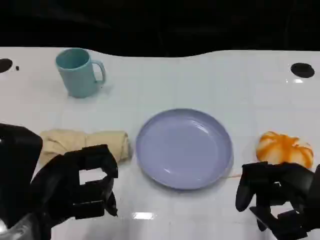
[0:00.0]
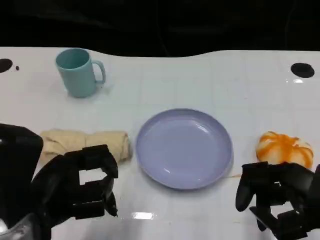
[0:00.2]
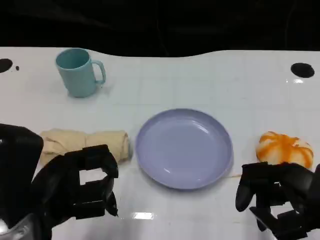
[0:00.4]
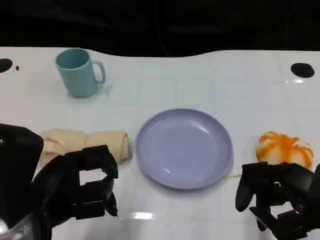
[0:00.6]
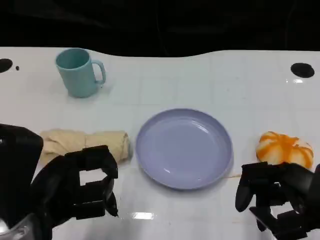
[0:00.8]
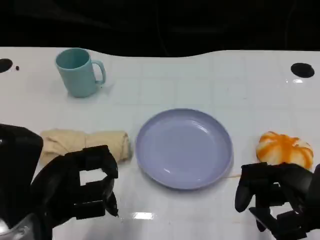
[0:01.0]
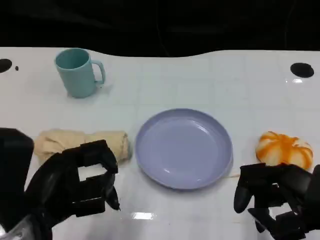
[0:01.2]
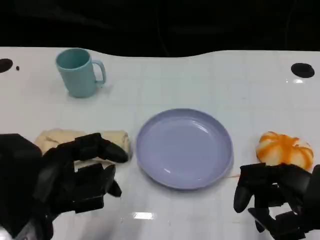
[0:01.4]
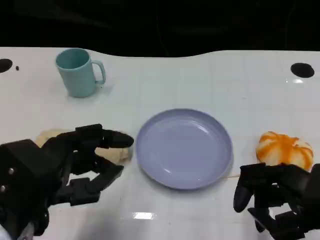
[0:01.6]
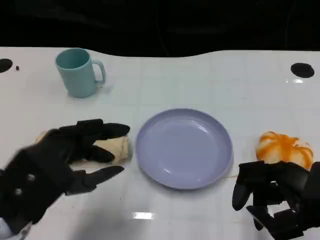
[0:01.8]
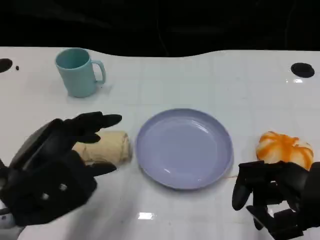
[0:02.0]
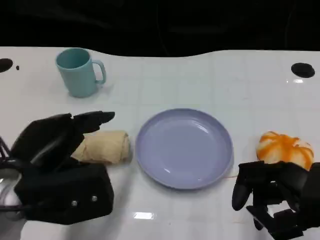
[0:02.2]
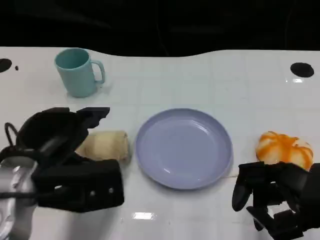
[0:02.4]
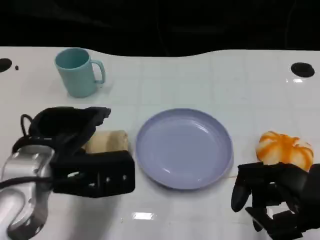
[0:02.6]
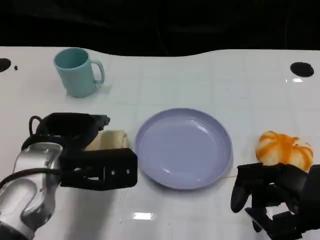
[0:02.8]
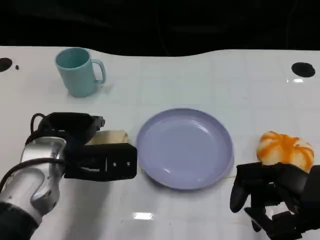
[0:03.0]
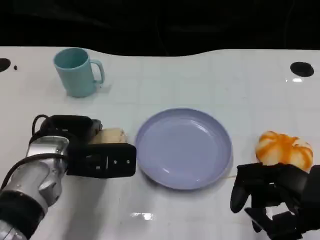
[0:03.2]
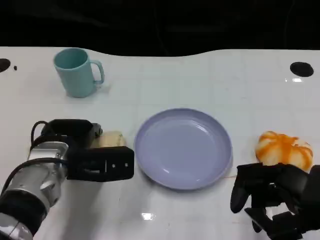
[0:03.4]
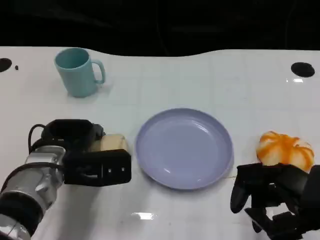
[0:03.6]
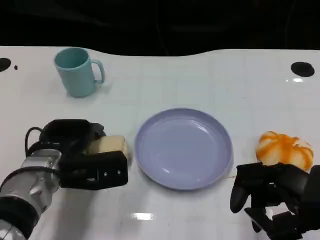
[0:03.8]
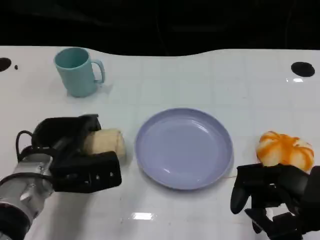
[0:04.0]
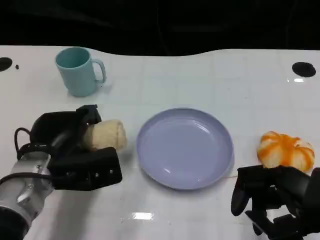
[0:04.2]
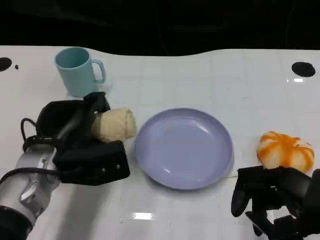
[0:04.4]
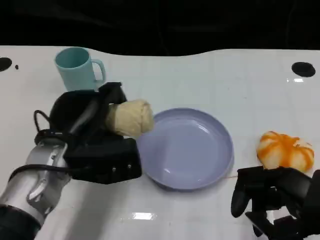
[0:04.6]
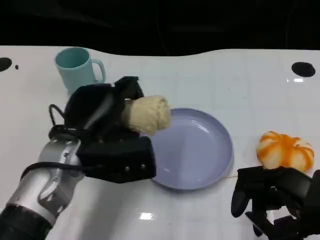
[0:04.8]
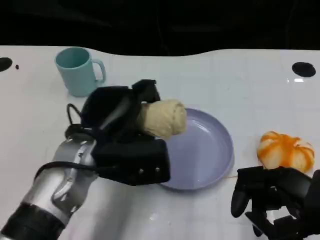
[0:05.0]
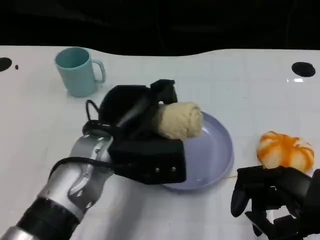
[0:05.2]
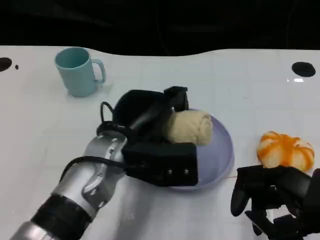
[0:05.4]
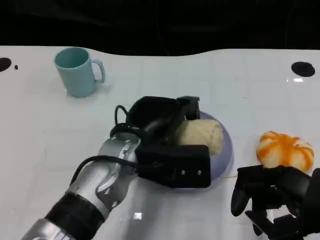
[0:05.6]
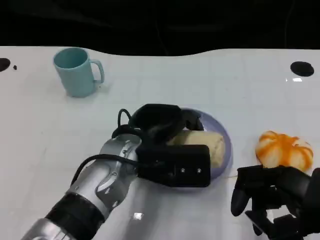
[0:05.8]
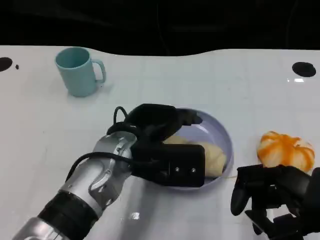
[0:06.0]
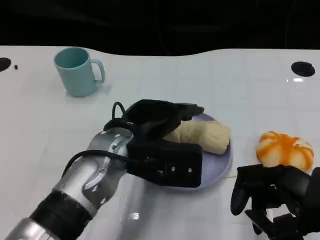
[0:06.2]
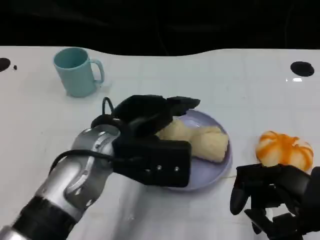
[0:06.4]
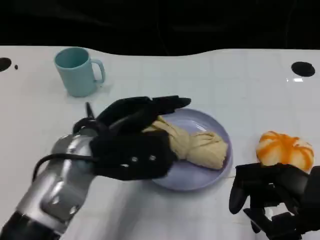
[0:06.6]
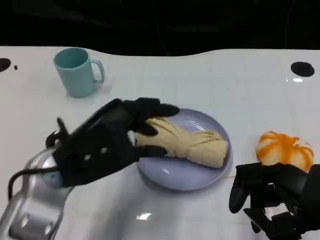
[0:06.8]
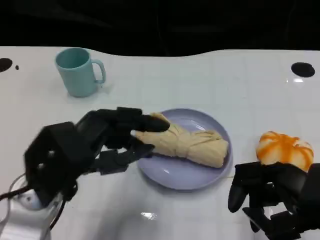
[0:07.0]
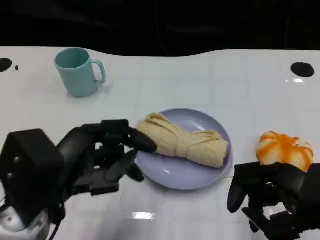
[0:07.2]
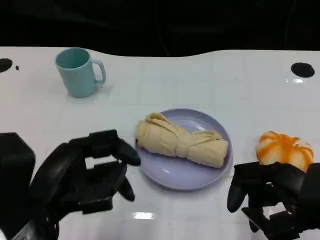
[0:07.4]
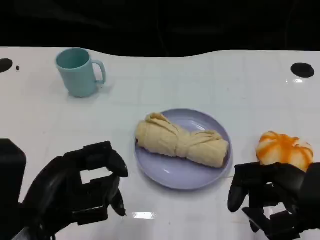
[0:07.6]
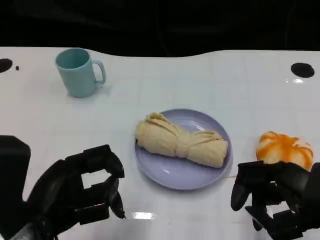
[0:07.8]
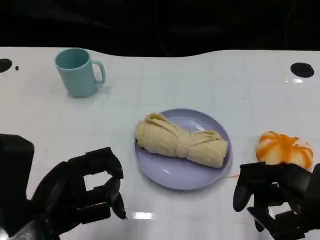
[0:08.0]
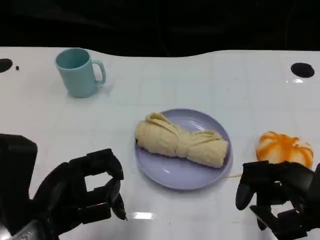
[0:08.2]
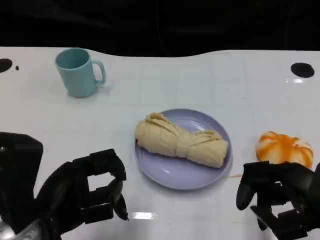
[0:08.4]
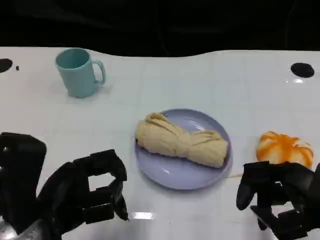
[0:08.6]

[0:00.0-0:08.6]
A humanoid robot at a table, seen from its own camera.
Task of the whole recording: Grasp the towel on the left side of the plate with the left hand and place it into the plate.
0:00.0 to 0:01.4: The hands make only small movements.
0:01.4 to 0:02.8: The left hand travels forward by about 10 cm.
0:04.4 to 0:05.8: The left hand goes roughly 10 cm to the right.
0:05.8 to 0:07.2: The left hand goes roughly 15 cm to the left and backward.

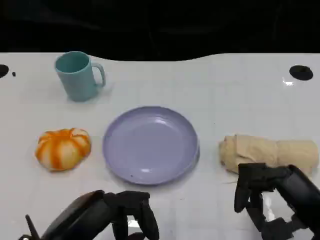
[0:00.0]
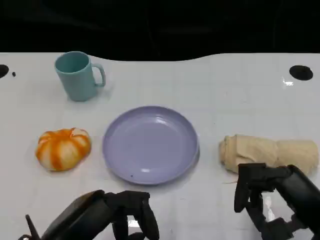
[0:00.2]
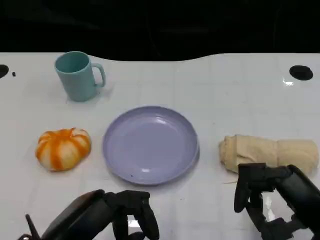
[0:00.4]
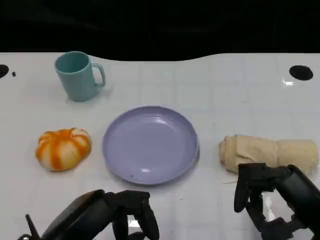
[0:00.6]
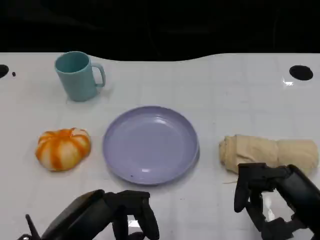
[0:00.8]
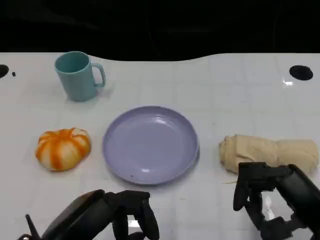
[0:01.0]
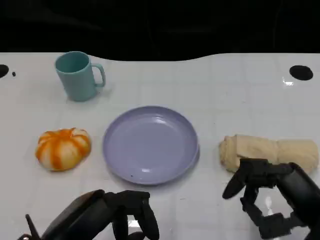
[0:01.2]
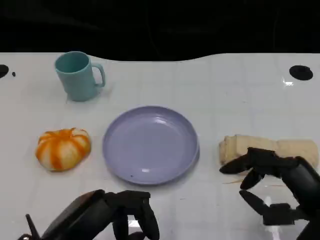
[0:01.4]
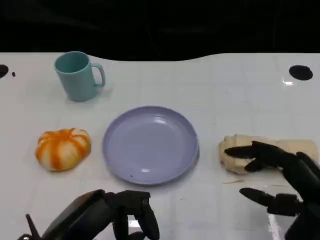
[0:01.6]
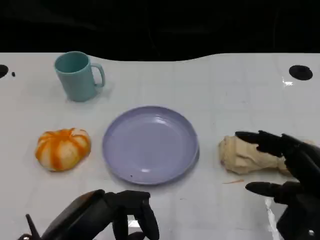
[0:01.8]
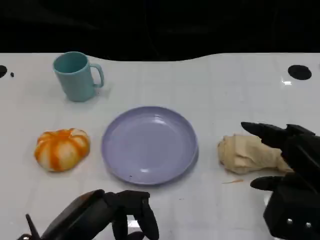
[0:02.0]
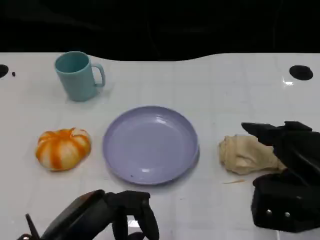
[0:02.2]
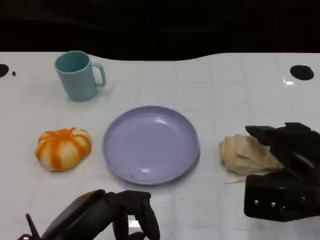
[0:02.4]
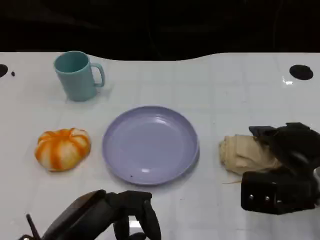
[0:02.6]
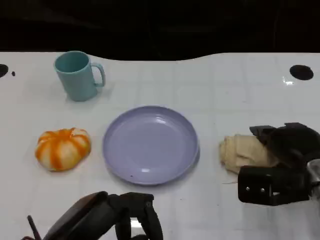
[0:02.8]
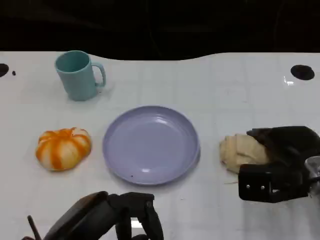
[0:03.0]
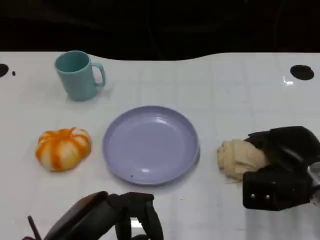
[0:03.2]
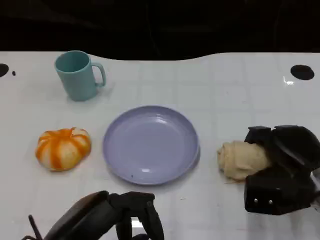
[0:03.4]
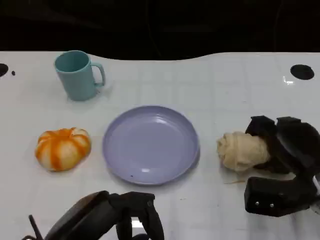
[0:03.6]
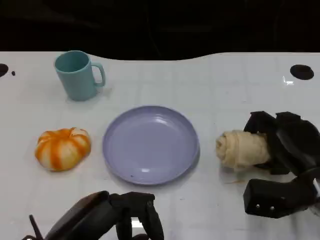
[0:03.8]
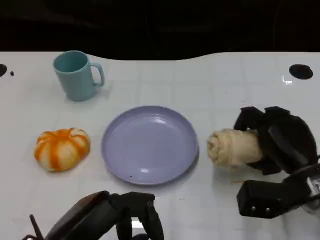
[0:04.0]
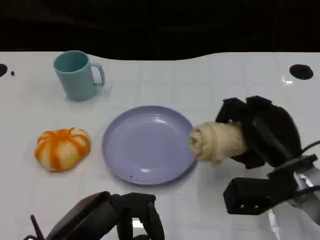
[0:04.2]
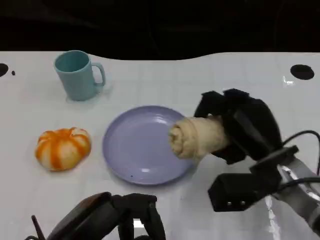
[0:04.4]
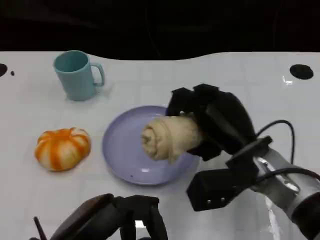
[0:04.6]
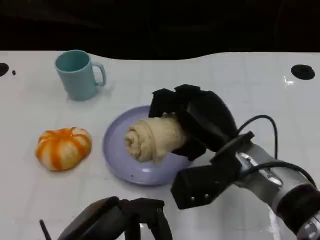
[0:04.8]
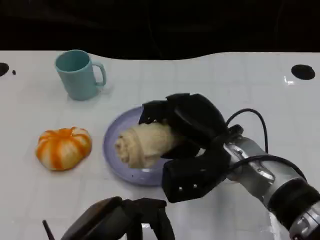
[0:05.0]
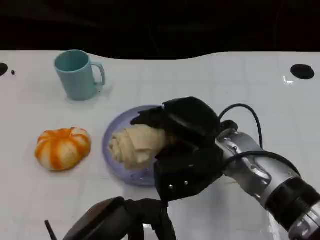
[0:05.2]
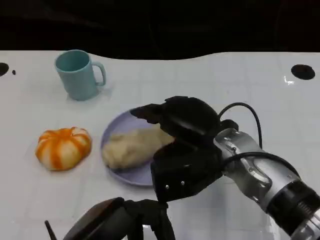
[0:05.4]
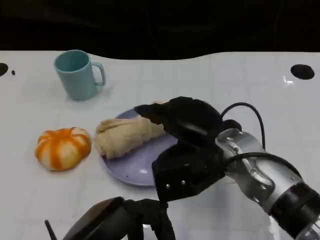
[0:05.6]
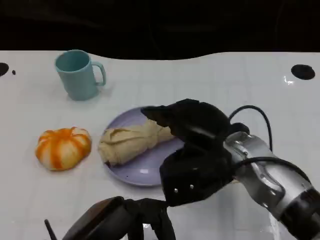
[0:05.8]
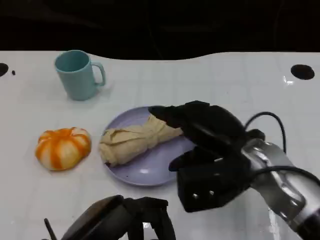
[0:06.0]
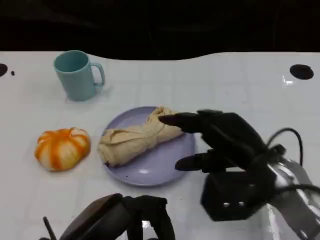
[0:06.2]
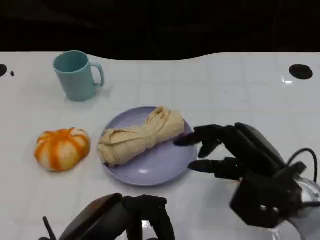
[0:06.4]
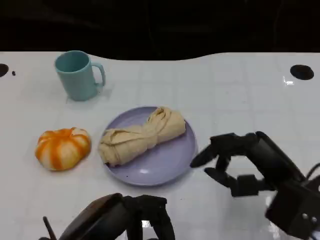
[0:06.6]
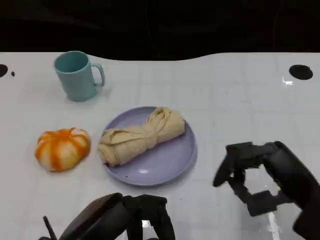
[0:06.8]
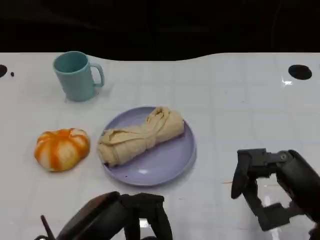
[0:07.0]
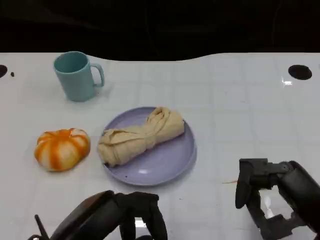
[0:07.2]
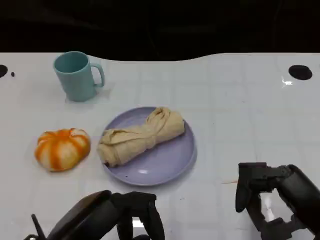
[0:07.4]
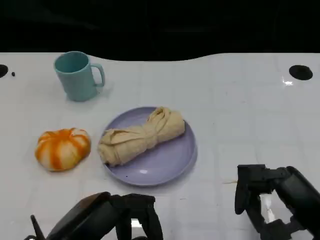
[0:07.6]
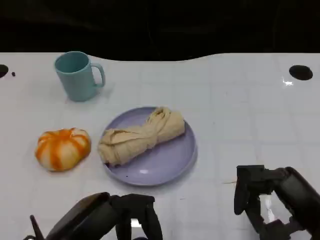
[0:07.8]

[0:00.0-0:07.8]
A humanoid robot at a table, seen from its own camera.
Task of the whole recording: Grasp the towel on the left side of the plate with the left hand and place it into the plate.
0:00.0 to 0:01.6: The hands make only small movements.
0:01.6 to 0:03.2: The right hand travels forward and downward by roughly 10 cm.
0:03.2 to 0:04.6: The right hand travels to the left by roughly 10 cm.
0:04.6 to 0:06.2: The right hand ends up approximately 5 cm from where it was.
0:06.2 to 0:07.8: The right hand goes about 10 cm backward and to the right.

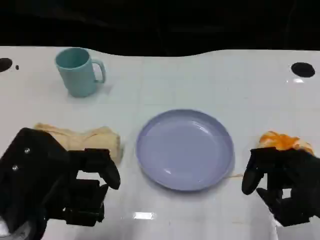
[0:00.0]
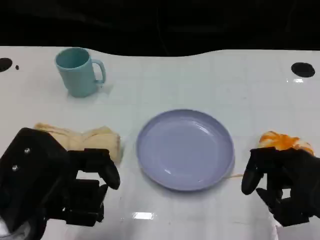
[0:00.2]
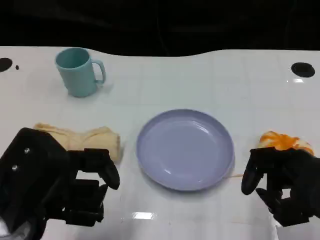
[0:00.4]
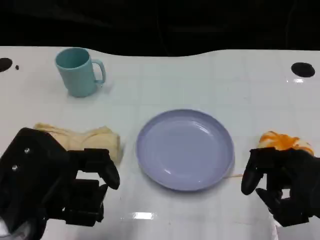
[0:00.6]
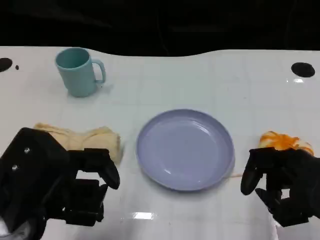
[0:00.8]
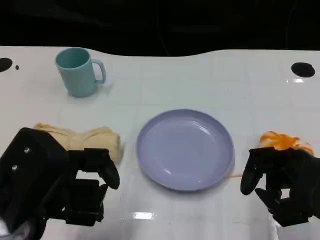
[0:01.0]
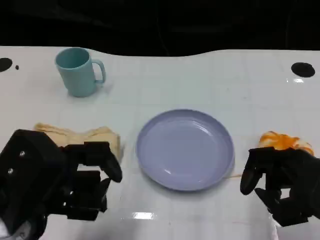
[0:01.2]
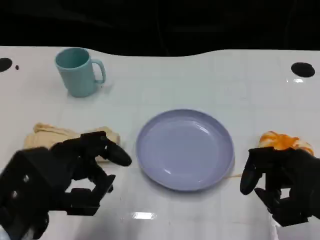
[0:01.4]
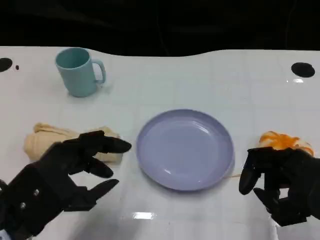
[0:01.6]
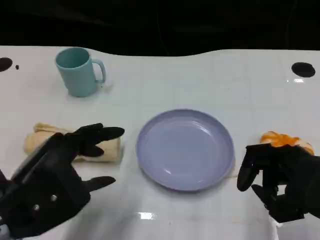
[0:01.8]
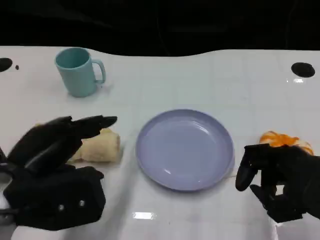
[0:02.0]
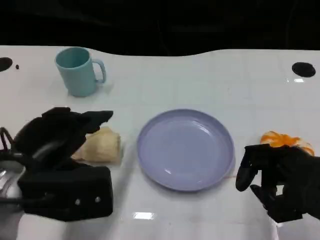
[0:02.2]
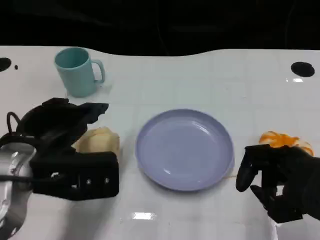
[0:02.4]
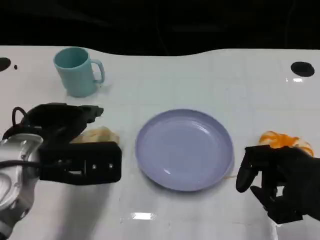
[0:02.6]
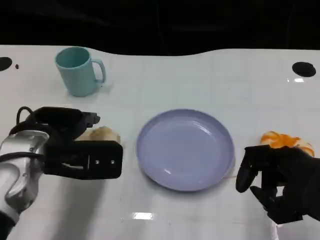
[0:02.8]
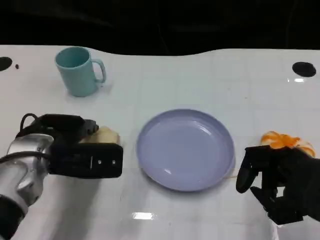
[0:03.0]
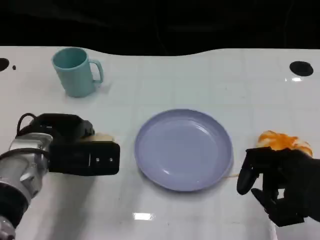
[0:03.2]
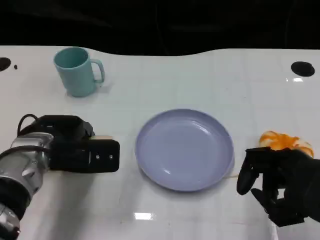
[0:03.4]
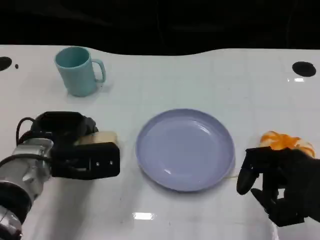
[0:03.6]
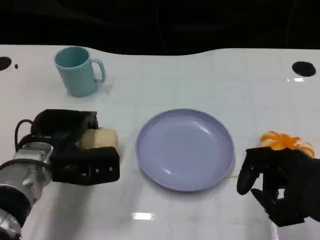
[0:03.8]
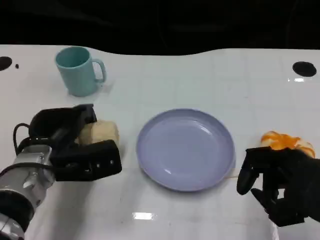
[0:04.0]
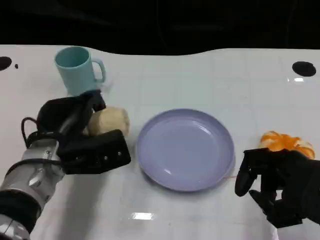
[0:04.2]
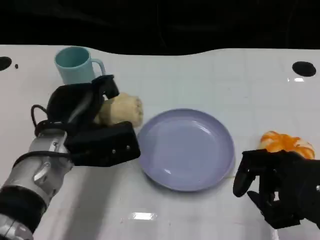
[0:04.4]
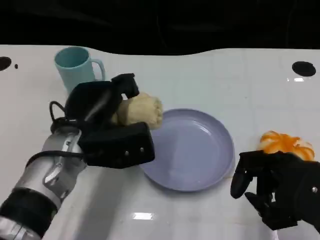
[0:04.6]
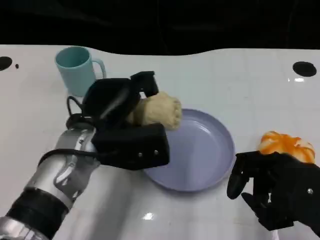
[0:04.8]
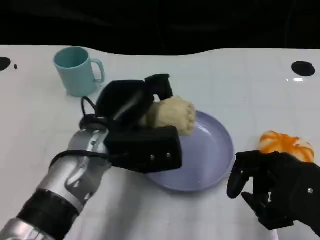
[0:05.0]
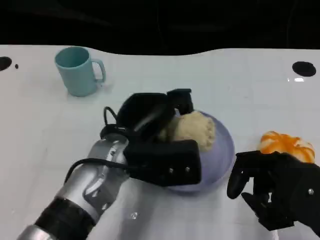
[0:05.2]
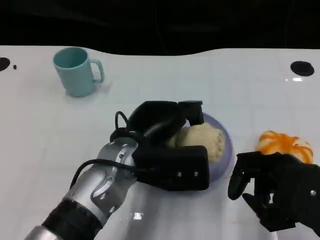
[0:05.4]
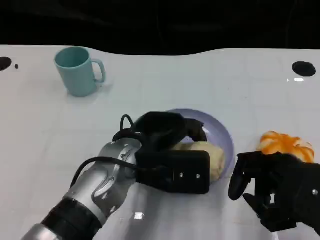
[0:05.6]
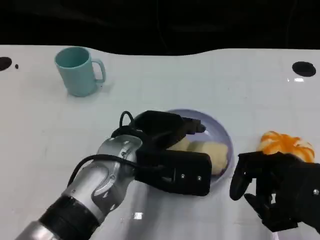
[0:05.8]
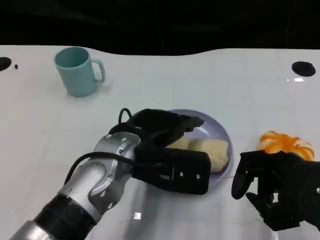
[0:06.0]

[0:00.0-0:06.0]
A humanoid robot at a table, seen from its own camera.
Task of the whole recording: Grasp the towel on the left side of the plate with the left hand and place it into the plate.
0:01.6 to 0:03.0: The left hand is displaced forward by about 10 cm.
0:04.4 to 0:06.0: The left hand heads to the right, covering roughly 10 cm.
